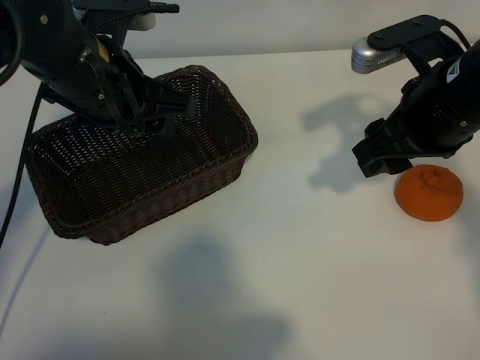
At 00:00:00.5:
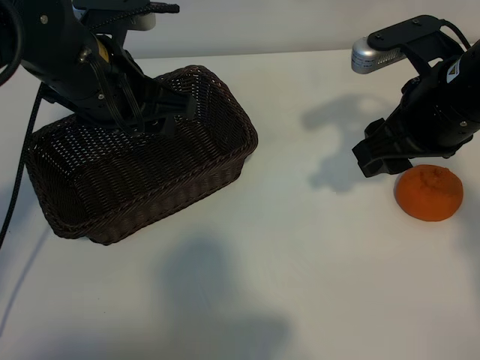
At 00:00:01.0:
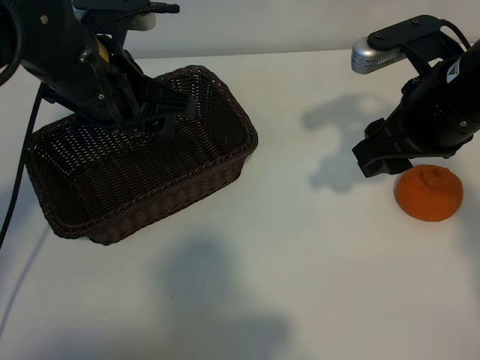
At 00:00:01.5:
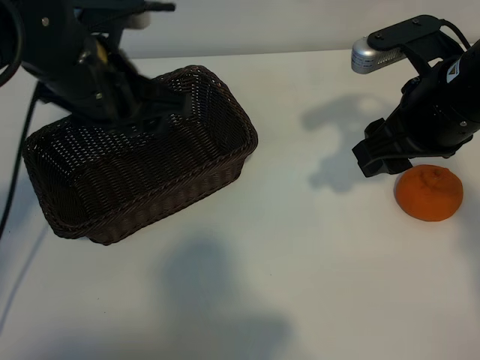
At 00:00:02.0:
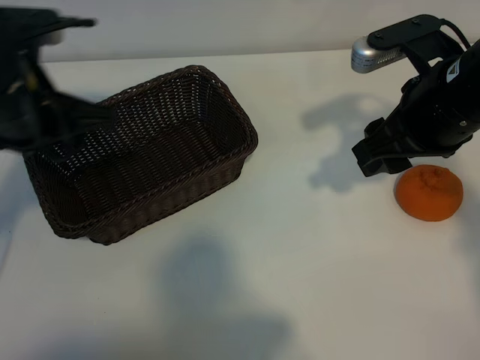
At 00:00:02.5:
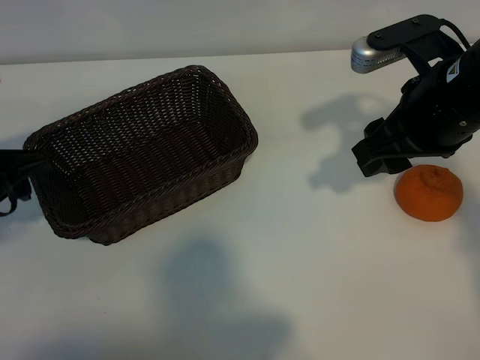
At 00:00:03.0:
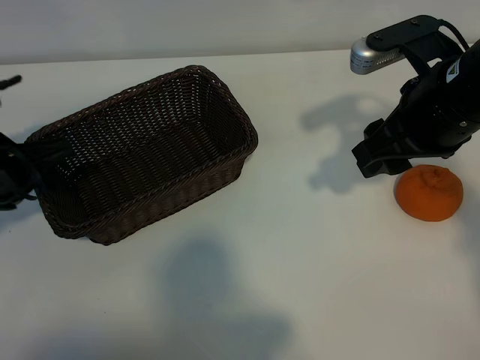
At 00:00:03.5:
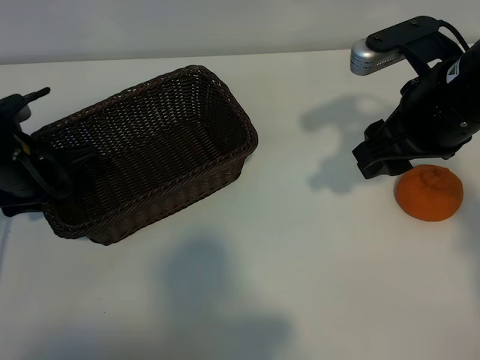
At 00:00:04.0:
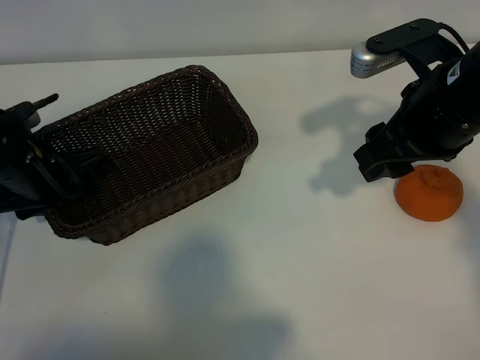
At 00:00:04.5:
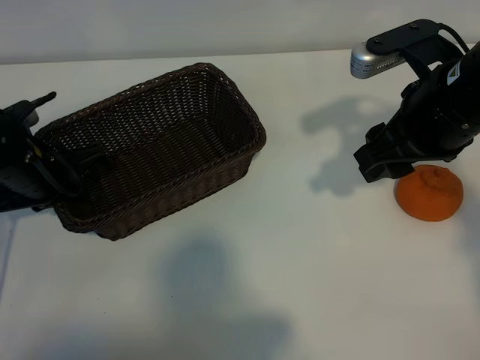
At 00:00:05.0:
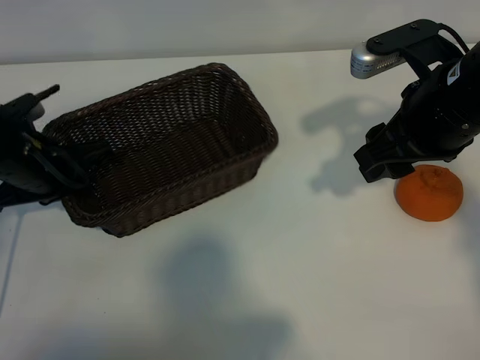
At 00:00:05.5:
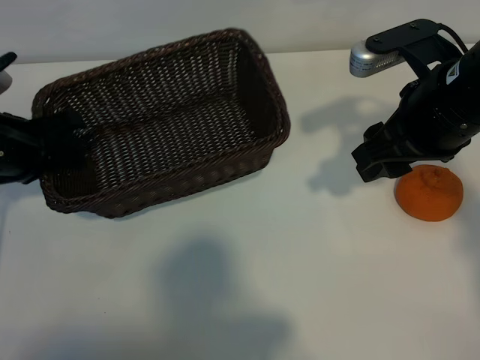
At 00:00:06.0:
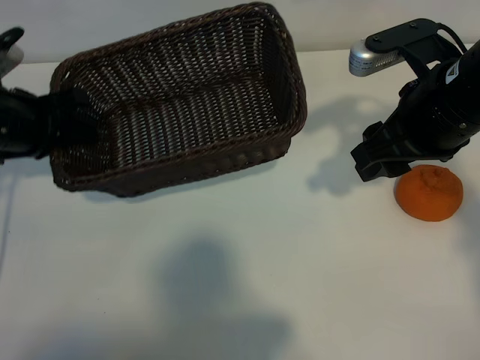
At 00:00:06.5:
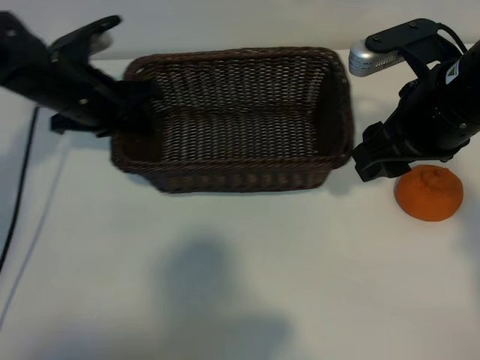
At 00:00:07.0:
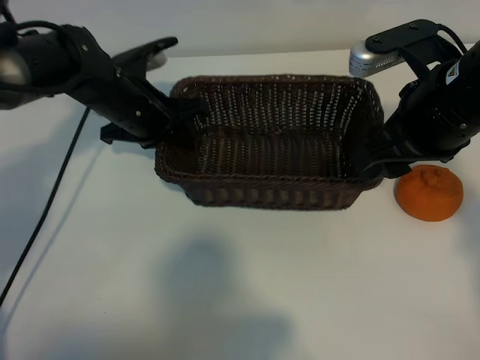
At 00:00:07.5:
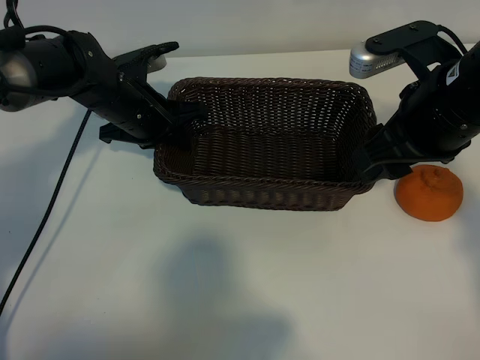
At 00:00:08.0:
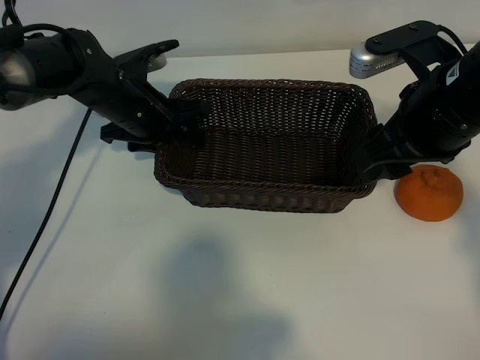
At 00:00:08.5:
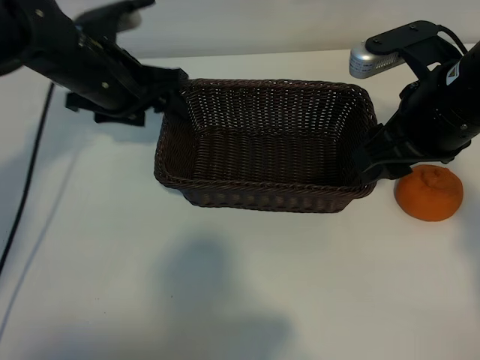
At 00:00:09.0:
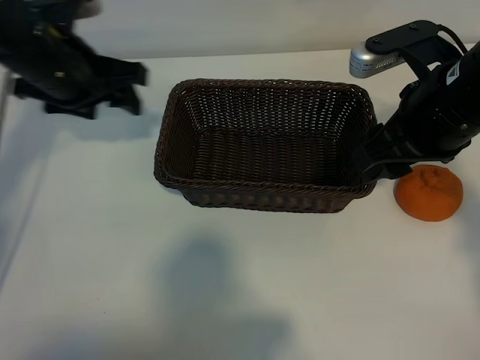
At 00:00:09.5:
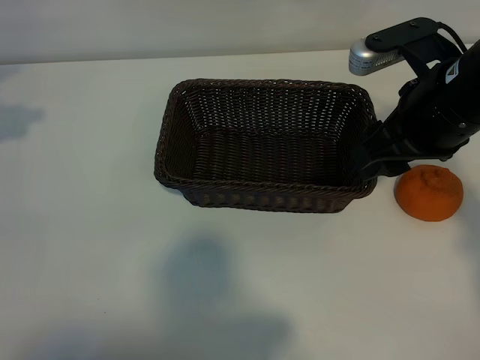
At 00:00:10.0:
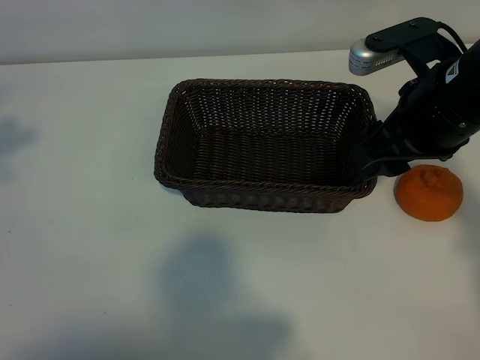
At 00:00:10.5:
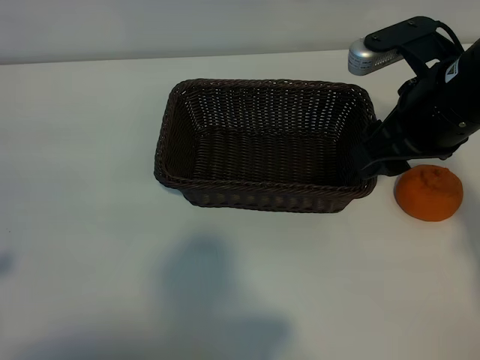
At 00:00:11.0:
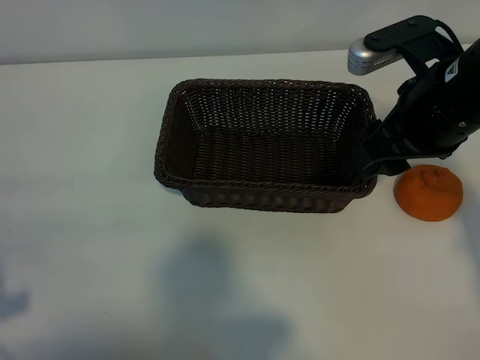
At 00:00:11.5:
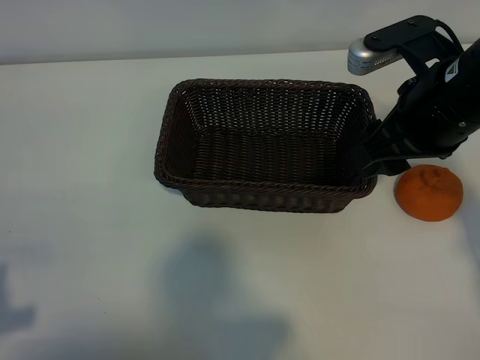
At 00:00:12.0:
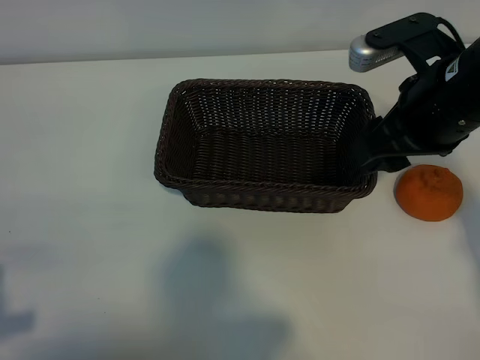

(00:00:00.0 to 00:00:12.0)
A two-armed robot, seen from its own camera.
Task of the whole recording: pick up the orange and put it into the basket.
Step, 00:00:01.5 - 00:00:04.5: Grasp the basket with left gripper.
Step, 00:00:05.0 - 00:00:07.5: Place the basket in the center of view with left gripper.

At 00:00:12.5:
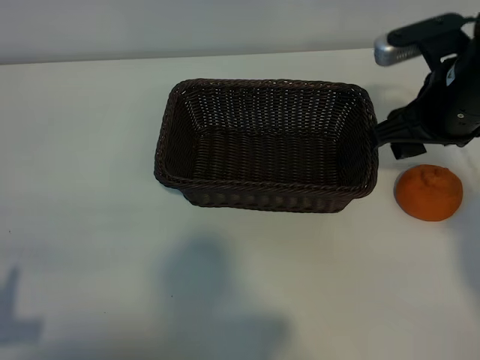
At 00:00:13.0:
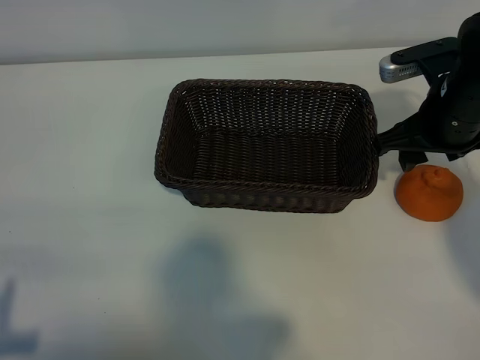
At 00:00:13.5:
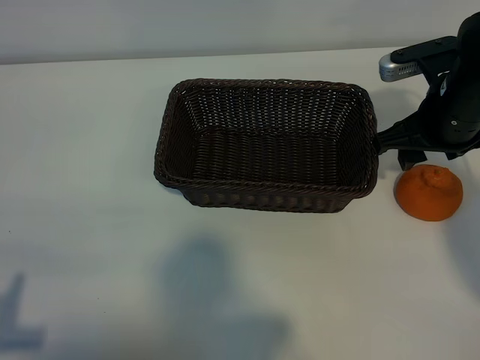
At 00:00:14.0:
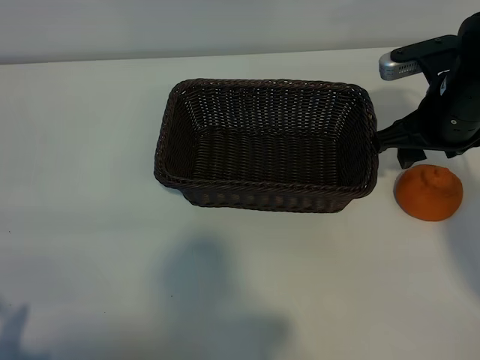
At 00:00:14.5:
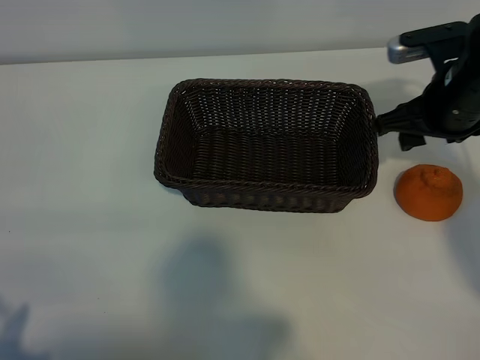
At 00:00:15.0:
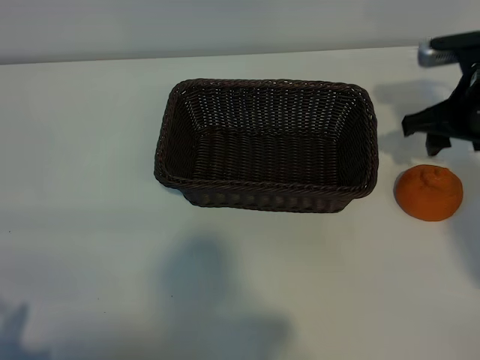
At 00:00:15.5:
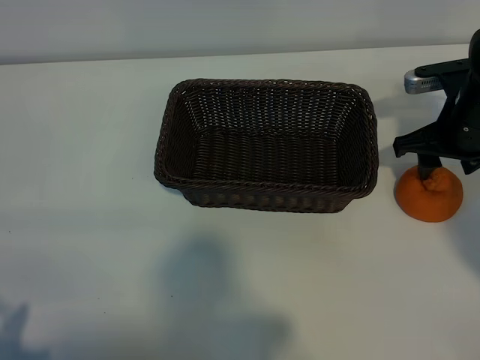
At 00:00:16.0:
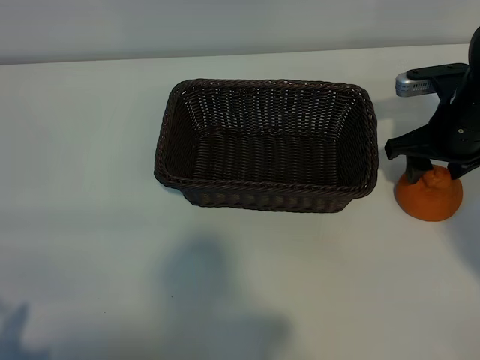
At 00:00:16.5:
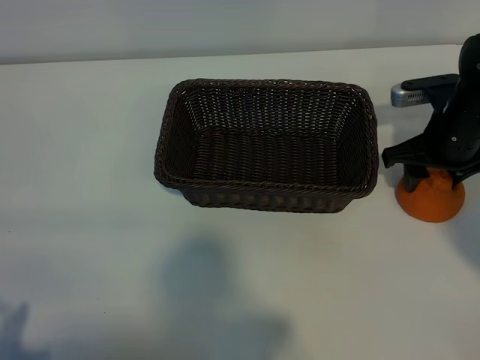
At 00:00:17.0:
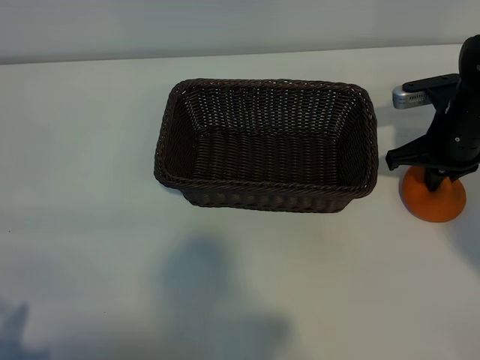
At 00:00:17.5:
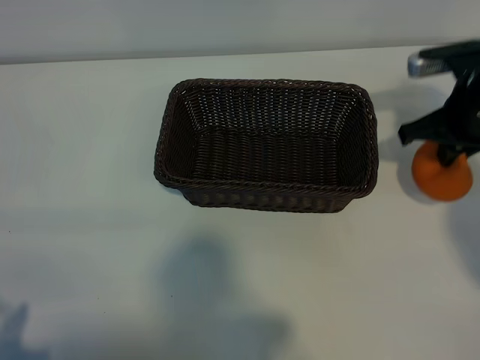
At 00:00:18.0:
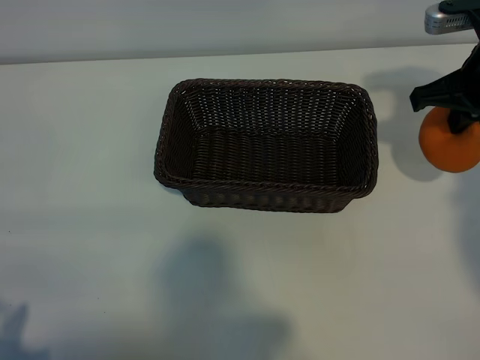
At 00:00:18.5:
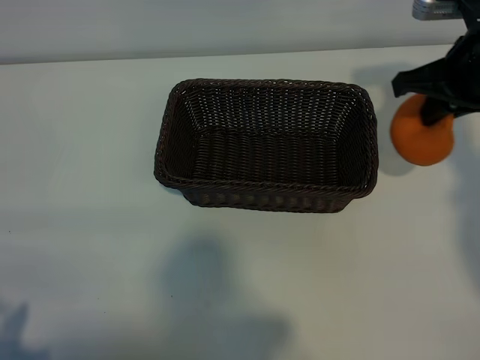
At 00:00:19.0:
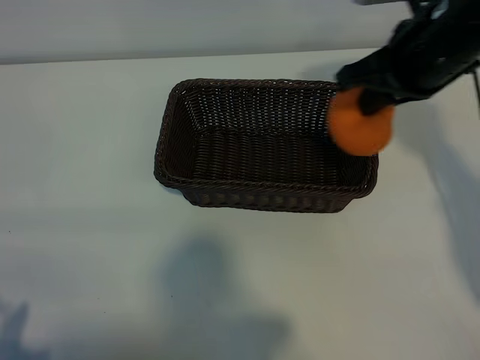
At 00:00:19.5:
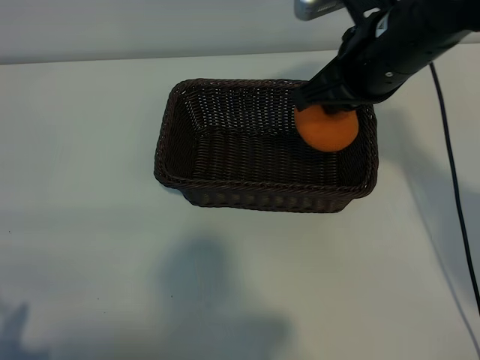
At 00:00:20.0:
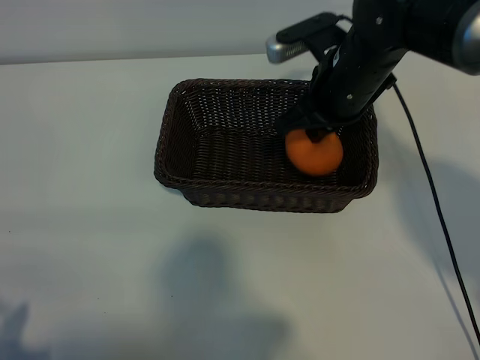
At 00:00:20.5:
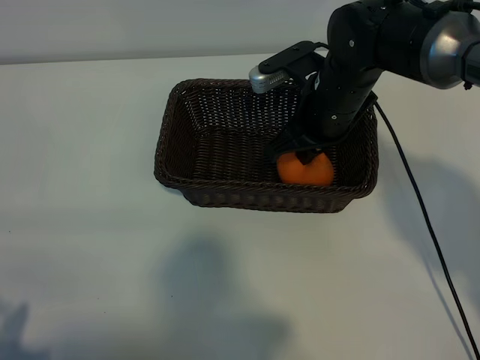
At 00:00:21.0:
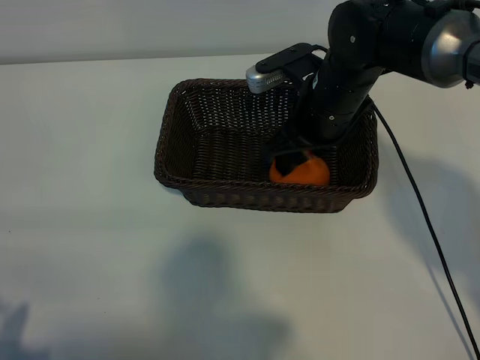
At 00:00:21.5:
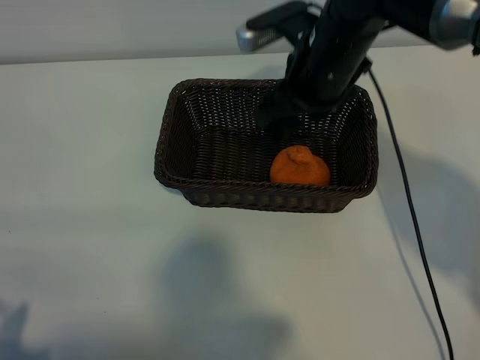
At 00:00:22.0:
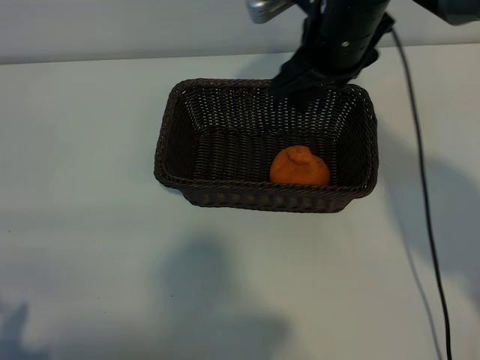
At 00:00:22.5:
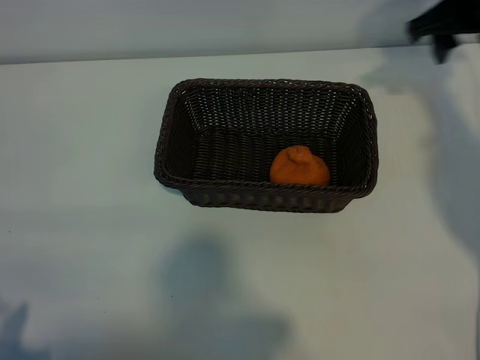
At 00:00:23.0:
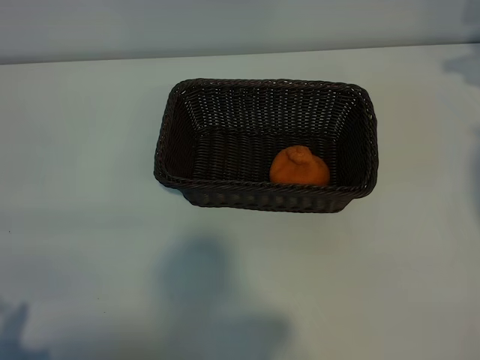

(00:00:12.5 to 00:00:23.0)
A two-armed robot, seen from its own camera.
Task of the whole recording: pick up the orange and put it into the basket.
Step, 00:00:12.5 - 00:00:16.5: Grasp the orange with right gripper.
Step, 00:00:17.0 - 00:00:20.5: Place the orange in the basket with right gripper.

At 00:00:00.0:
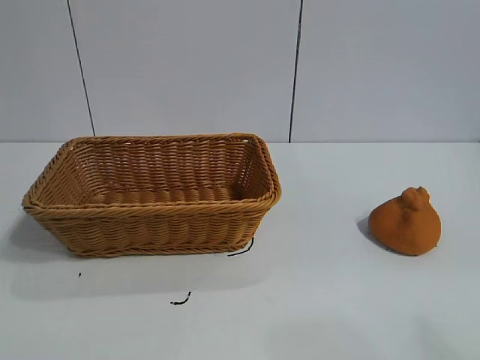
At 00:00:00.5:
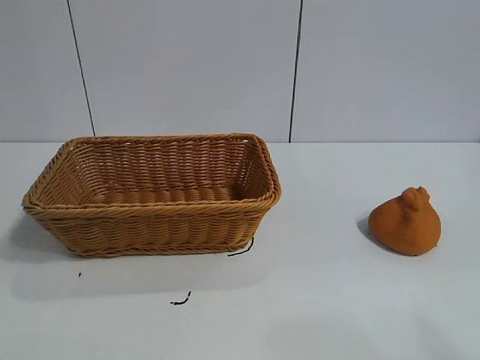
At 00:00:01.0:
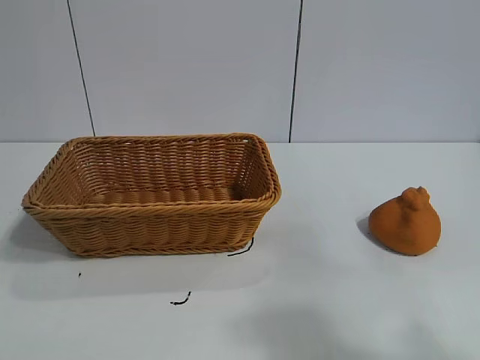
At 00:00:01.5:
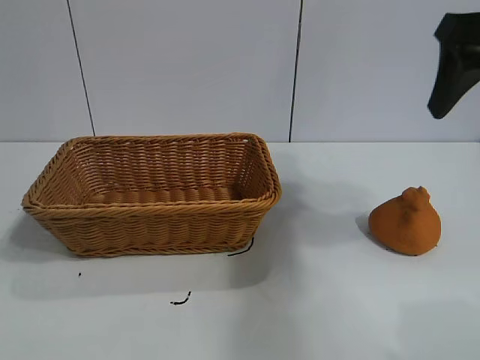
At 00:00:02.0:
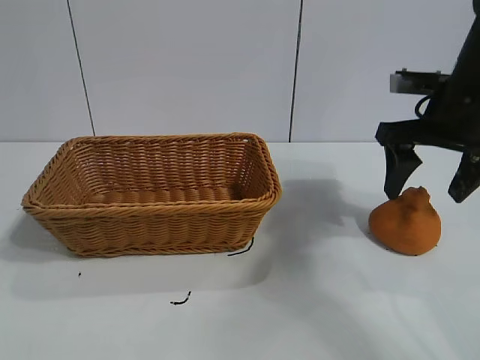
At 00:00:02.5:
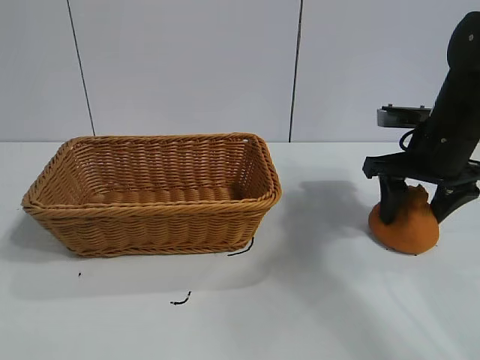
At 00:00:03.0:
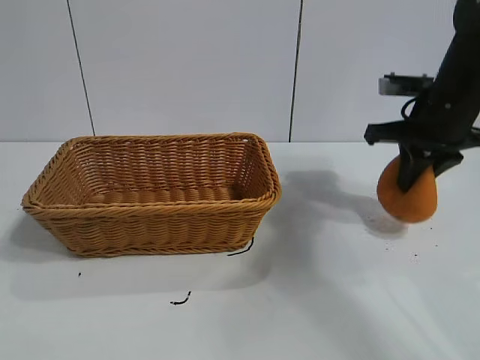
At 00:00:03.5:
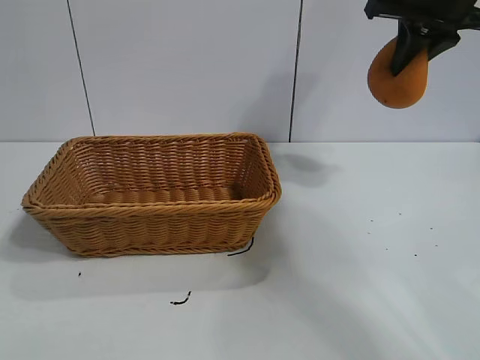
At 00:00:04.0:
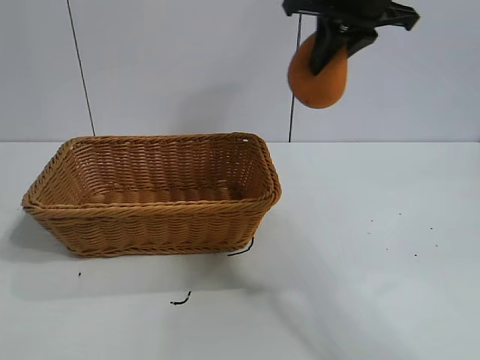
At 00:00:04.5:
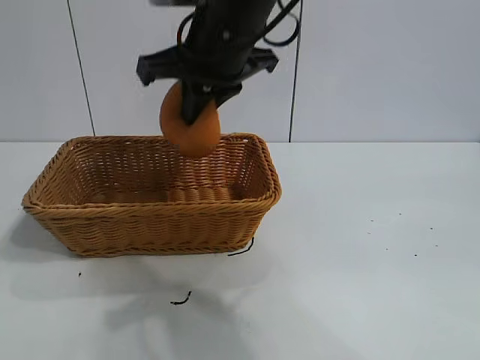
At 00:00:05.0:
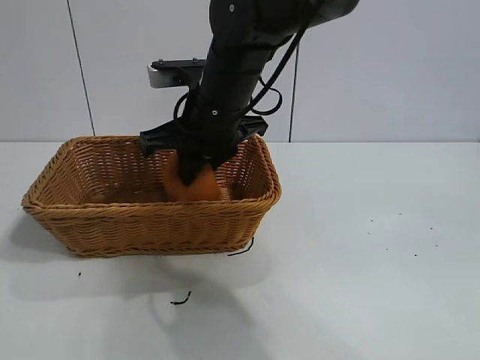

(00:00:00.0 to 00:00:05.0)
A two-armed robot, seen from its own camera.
Task of the whole recording: pick up the orange and put it into the basket.
Step, 00:00:00.5 - 00:00:02.5: Grasp the orange with right gripper.
